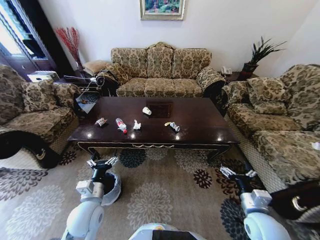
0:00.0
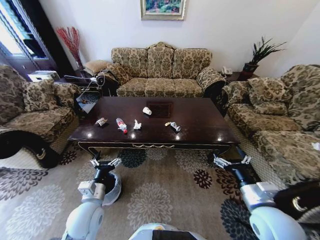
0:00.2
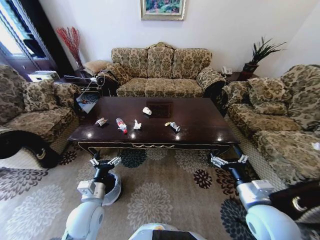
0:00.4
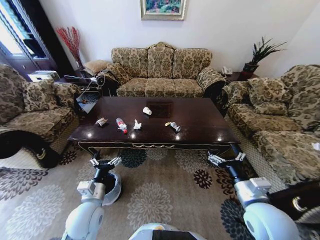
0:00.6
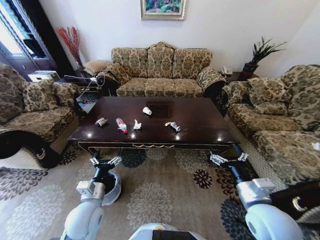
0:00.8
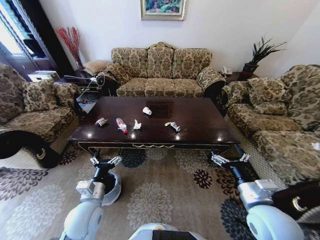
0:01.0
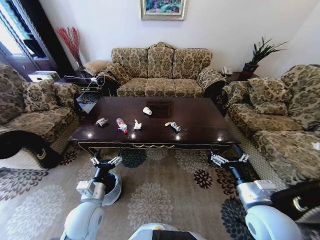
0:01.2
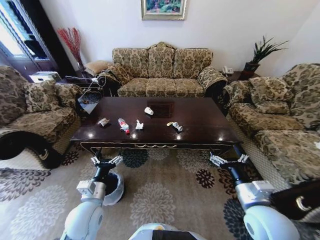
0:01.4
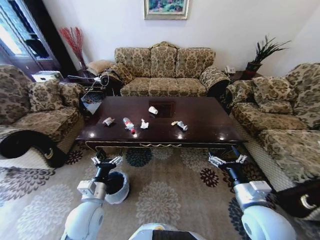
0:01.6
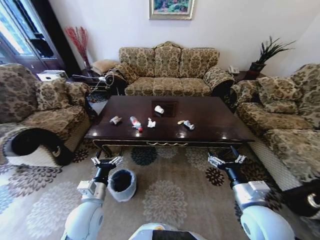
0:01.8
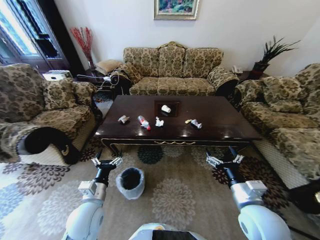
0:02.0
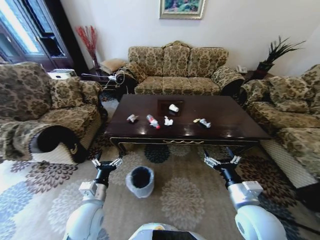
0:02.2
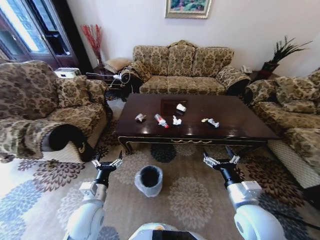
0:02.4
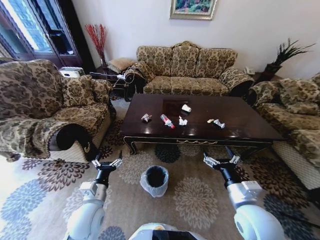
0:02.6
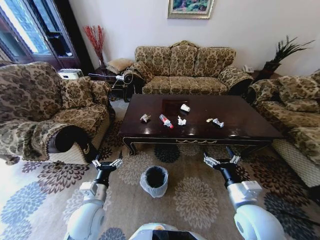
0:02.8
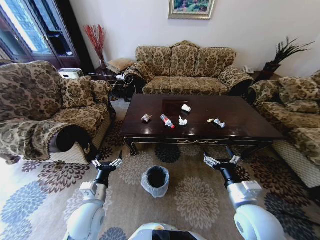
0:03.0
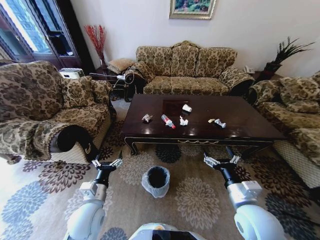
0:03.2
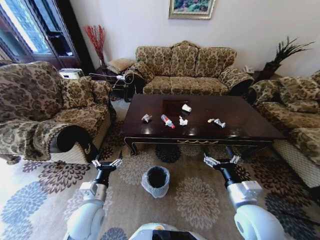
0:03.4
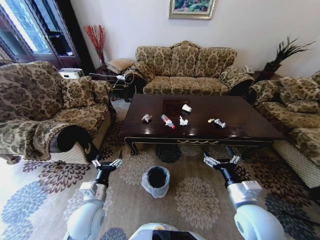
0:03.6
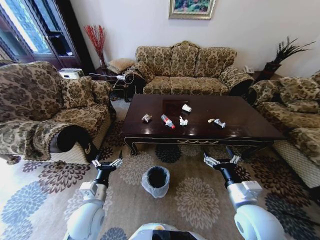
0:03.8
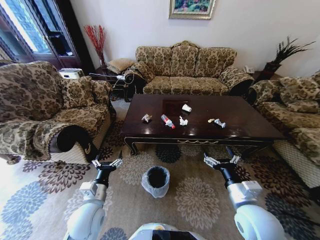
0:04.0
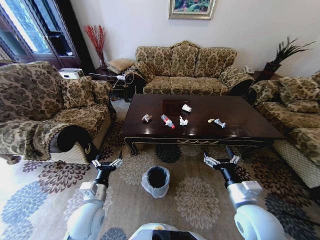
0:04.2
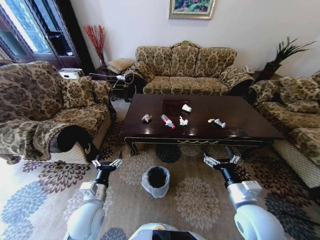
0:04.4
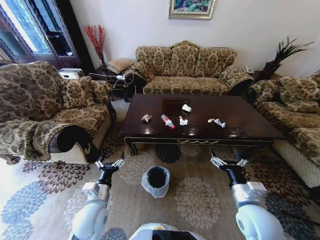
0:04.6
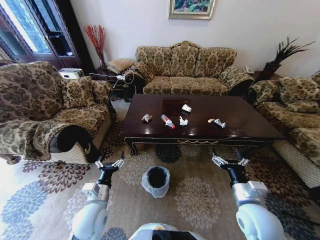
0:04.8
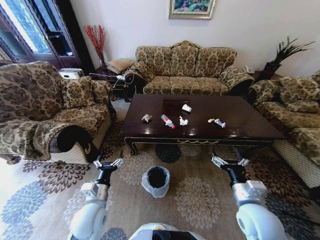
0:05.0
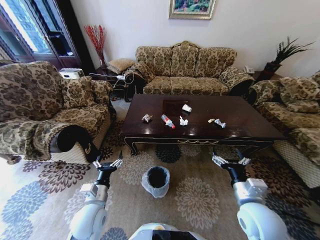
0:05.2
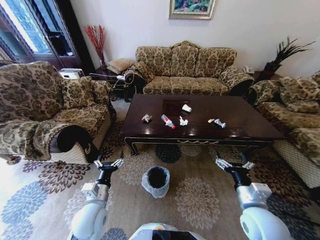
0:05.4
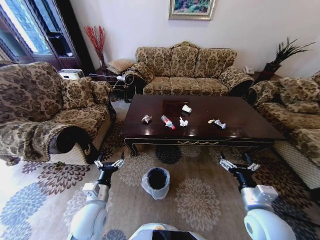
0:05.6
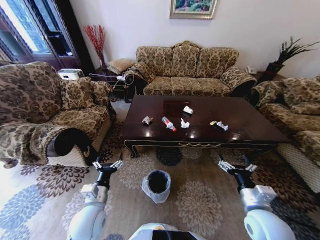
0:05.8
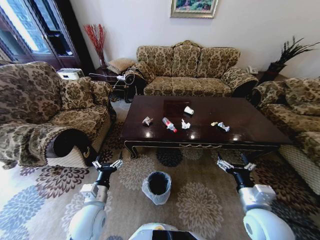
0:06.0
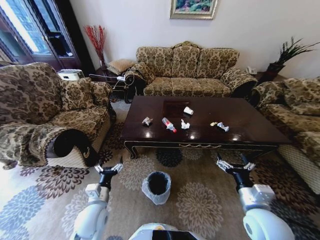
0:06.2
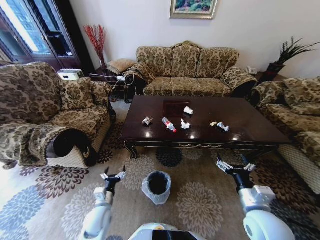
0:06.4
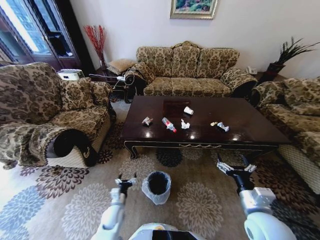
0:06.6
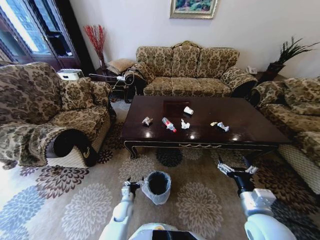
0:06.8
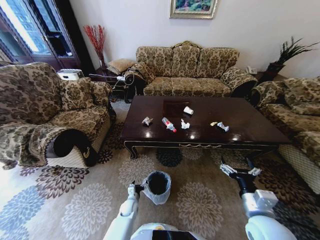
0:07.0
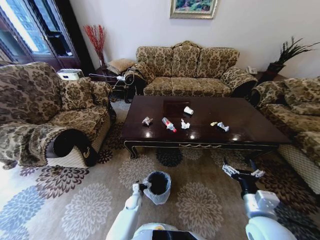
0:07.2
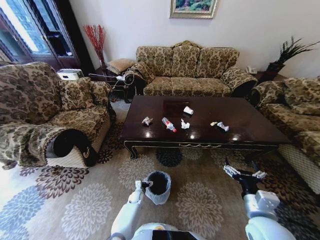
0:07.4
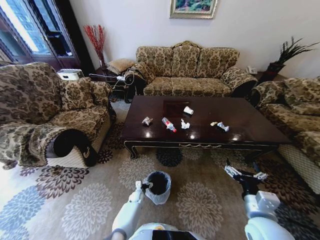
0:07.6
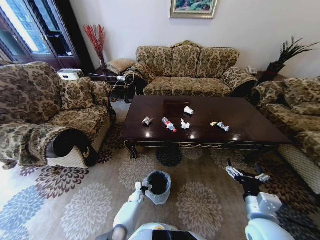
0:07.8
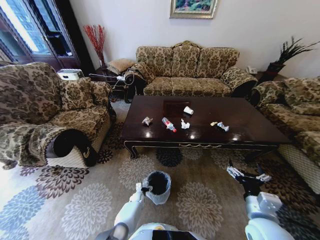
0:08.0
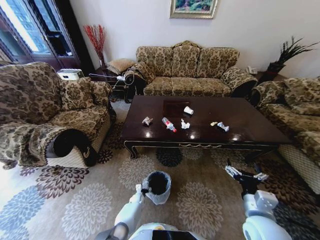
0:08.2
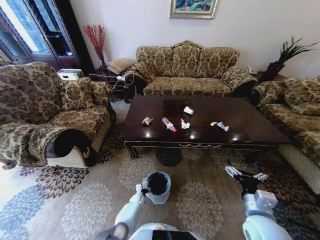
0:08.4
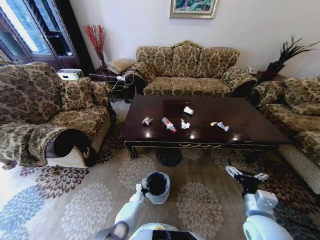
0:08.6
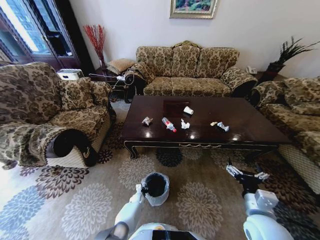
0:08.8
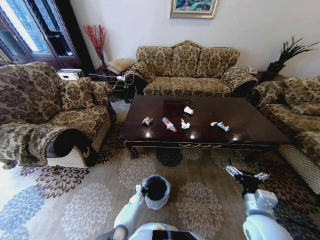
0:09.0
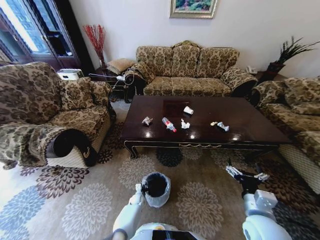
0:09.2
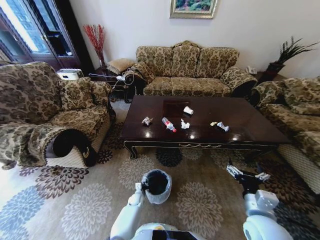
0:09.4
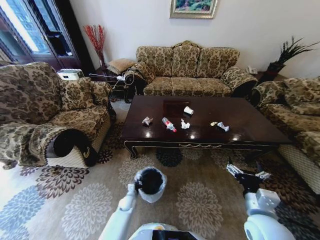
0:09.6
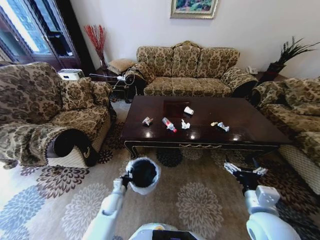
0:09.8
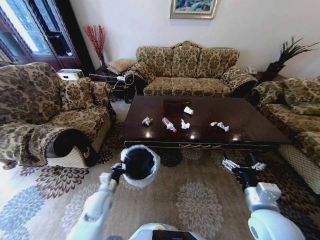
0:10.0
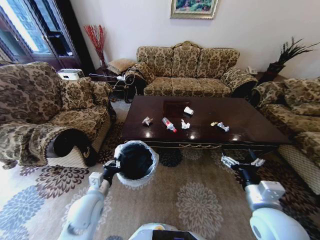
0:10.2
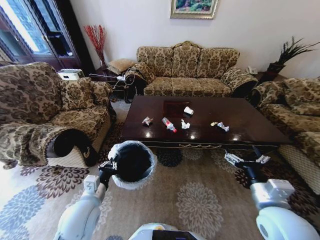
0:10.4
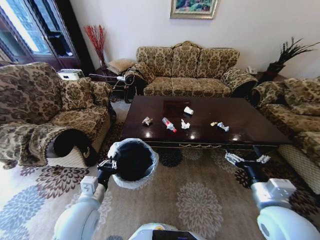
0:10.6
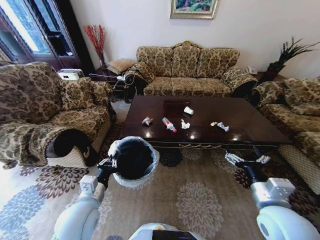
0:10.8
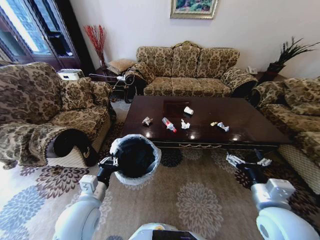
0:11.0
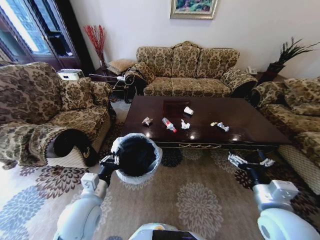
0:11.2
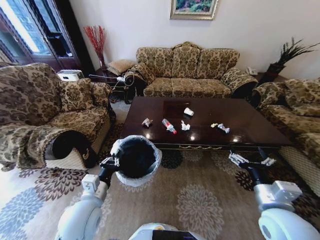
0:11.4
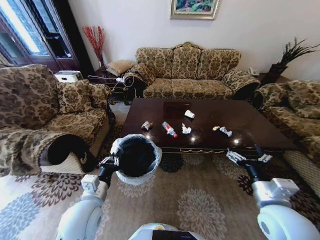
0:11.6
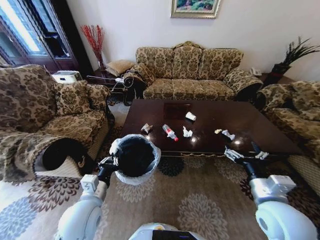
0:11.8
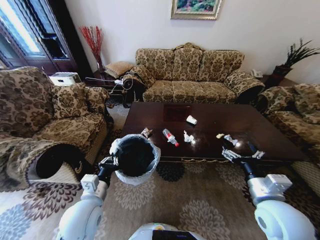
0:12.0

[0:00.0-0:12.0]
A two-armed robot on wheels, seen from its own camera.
Task of the whole recording: Move to the front of the table and place the trash on the table into the trash bin.
0:03.0 to 0:04.4: Both grippers stay put.
0:06.0 to 0:07.6: The left gripper goes roughly 35 cm downward and forward.
0:07.6 to 0:09.0: The left gripper closes up.
0:09.0 to 0:10.4: The left gripper travels upward by approximately 40 cm. The right gripper is displaced upward by roughly 5 cm.

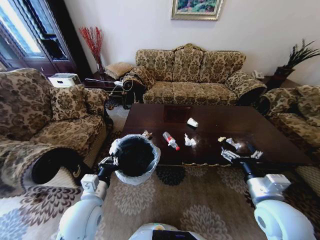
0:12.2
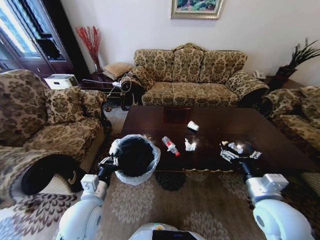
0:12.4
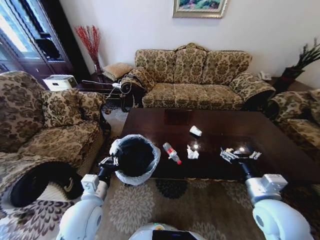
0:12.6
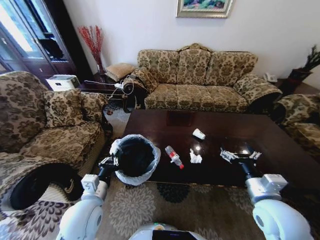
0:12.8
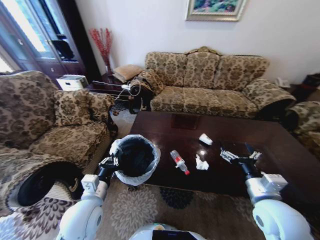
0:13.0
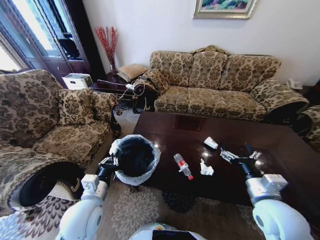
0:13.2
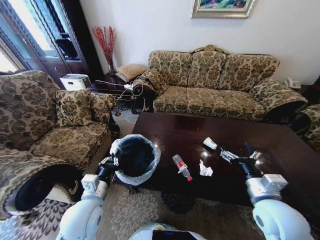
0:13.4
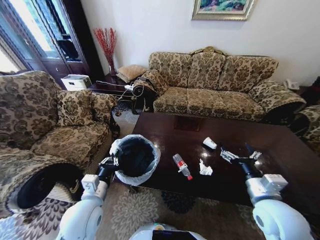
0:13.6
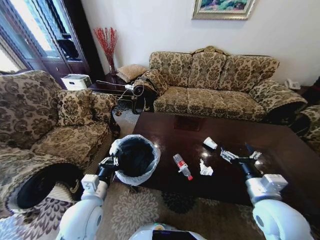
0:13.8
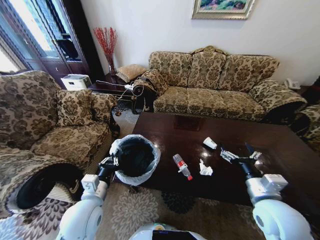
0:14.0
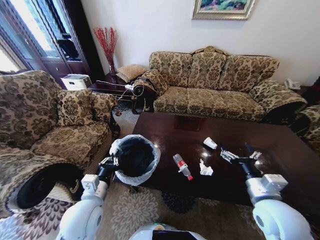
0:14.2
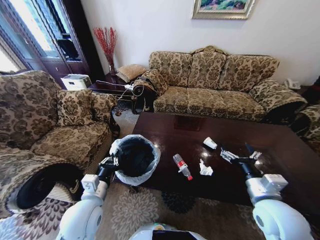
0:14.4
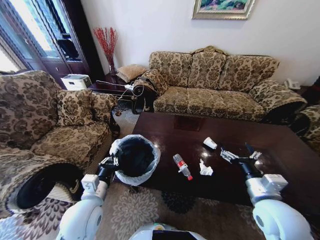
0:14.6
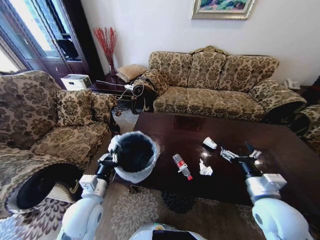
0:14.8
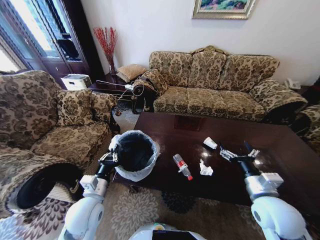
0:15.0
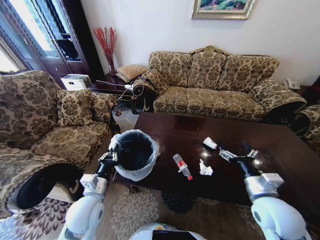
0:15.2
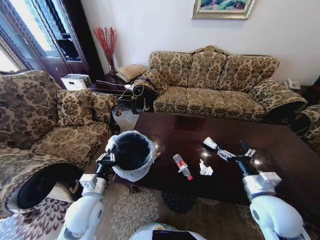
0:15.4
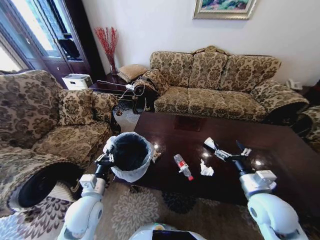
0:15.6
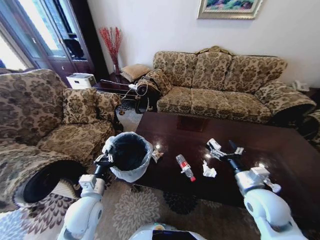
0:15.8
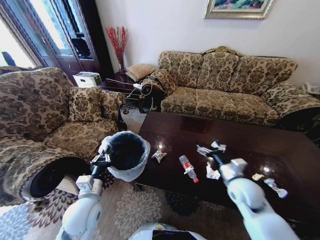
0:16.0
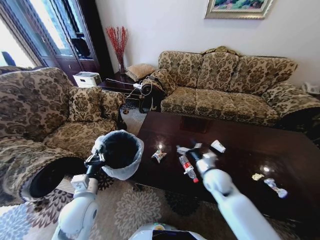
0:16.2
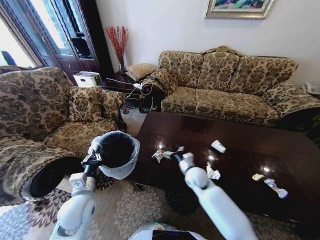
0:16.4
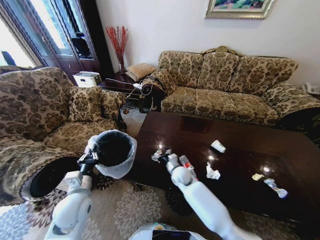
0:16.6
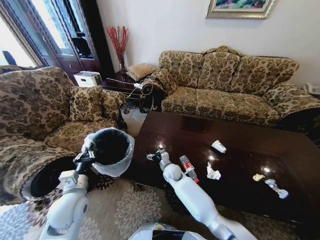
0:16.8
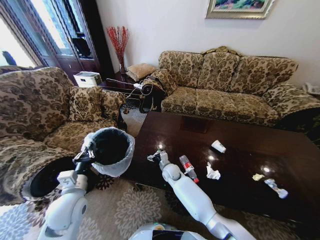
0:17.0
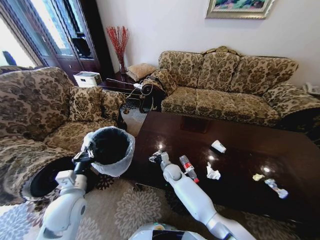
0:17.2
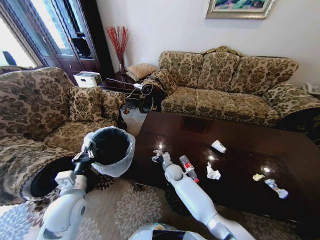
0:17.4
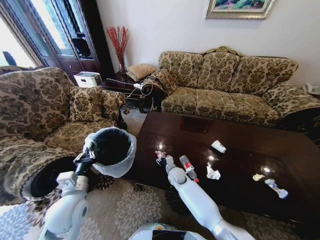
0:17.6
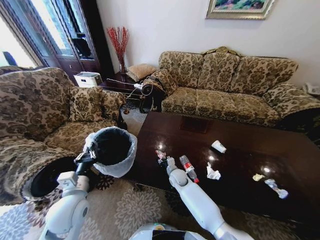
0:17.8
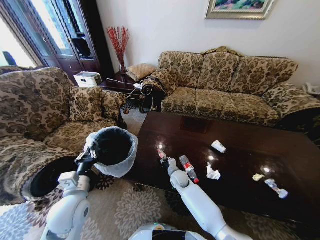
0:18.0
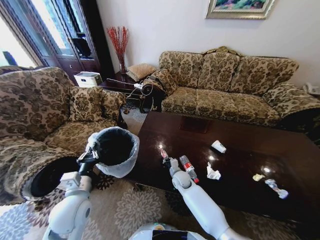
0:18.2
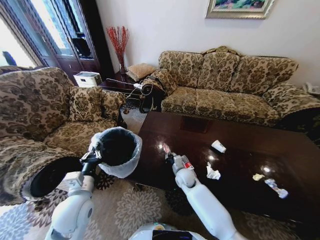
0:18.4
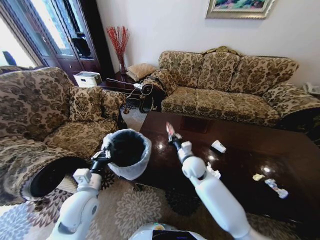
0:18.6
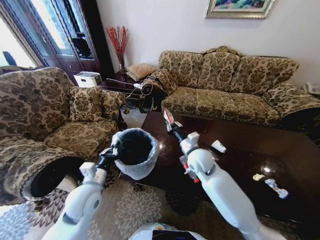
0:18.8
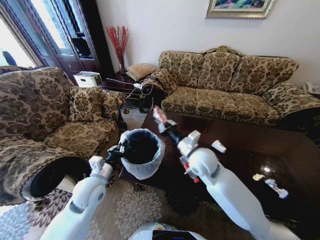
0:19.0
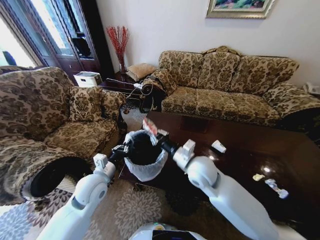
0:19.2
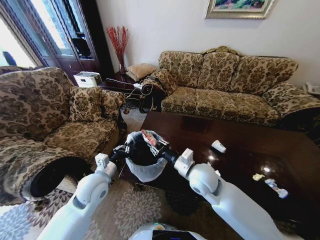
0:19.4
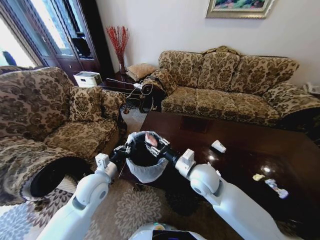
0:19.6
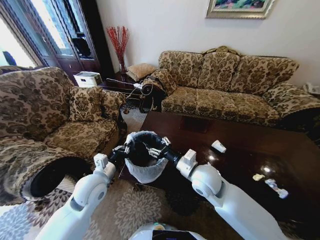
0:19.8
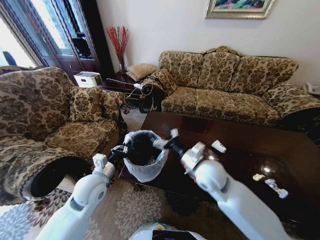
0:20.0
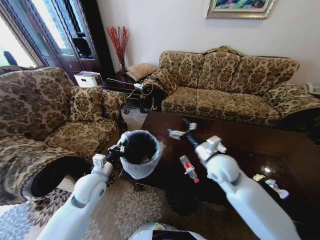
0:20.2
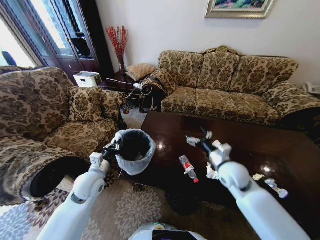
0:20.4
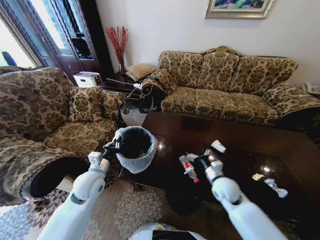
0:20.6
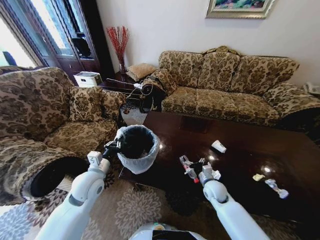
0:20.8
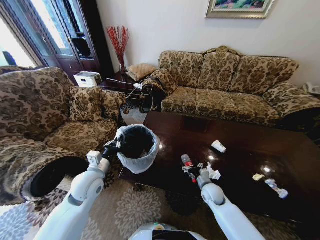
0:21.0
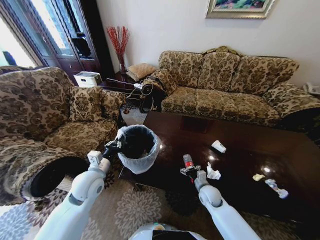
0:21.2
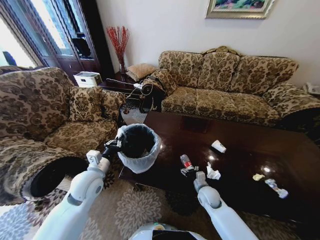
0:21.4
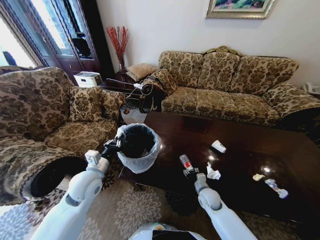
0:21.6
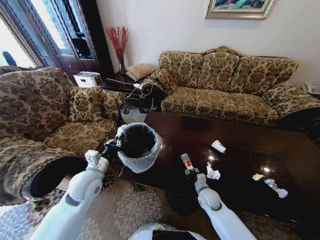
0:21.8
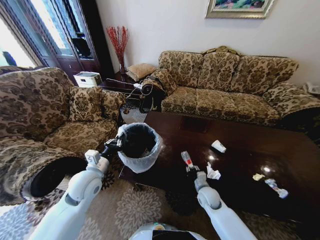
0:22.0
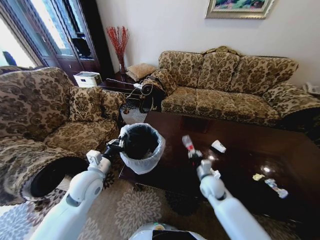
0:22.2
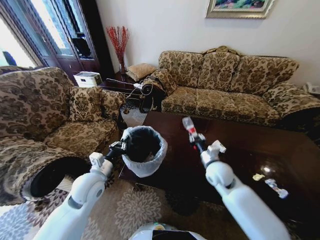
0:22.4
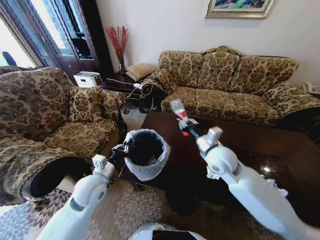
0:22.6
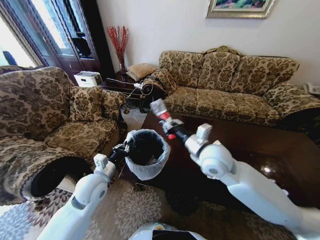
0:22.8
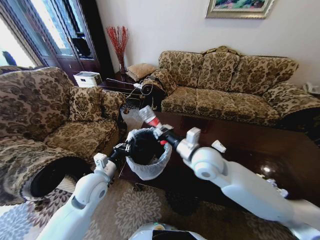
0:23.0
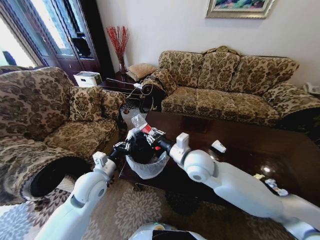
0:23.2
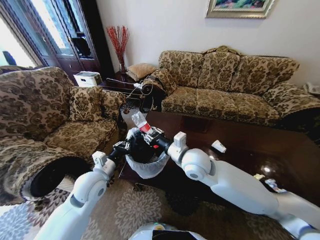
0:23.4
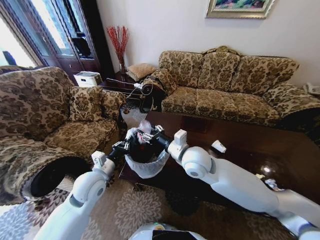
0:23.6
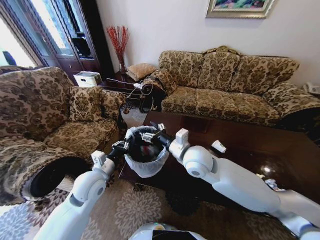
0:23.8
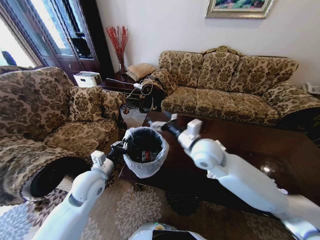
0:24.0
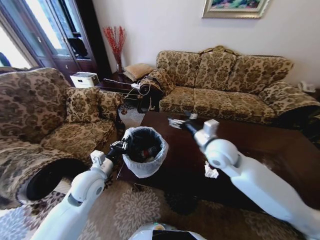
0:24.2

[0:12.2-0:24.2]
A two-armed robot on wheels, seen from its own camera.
Task of the whole recording: Move to the front of the table and place the trash on the table into the trash bin.
0:13.8 to 0:15.2: There are only small adjustments of the grippers.
0:15.2 to 0:16.6: The right gripper goes about 35 cm to the left, forward and downward.
0:16.6 to 0:18.2: The right gripper is displaced downward by about 5 cm, and closes its fingers.
0:18.2 to 0:19.8: The left gripper goes some 5 cm forward. The right gripper moves upward, approximately 25 cm, and opens up.
0:19.8 to 0:21.2: The right gripper shifts roughly 25 cm downward and to the right.
0:21.2 to 0:22.6: The right gripper goes roughly 30 cm upward, and closes its fingers.
0:22.6 to 0:24.2: The right gripper goes to the left and returns, roughly 10 cm each way, and opens.
